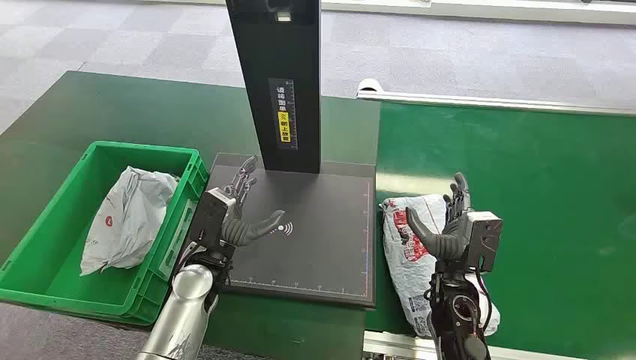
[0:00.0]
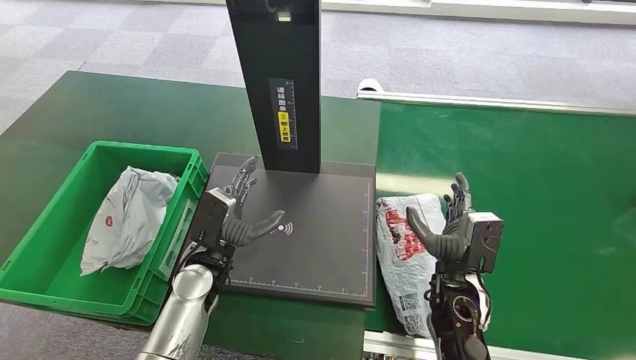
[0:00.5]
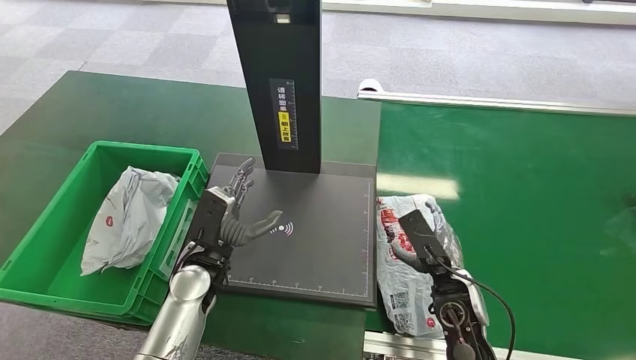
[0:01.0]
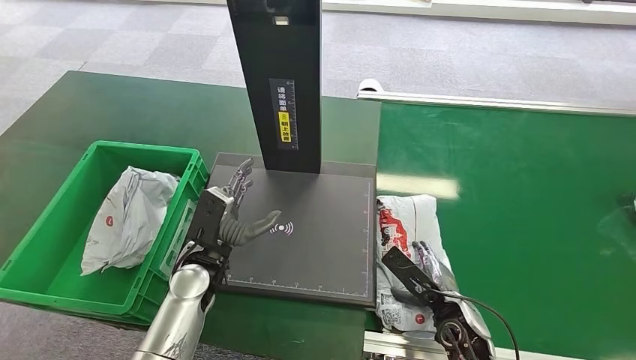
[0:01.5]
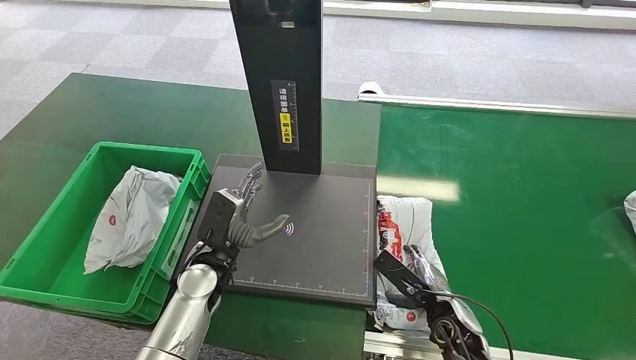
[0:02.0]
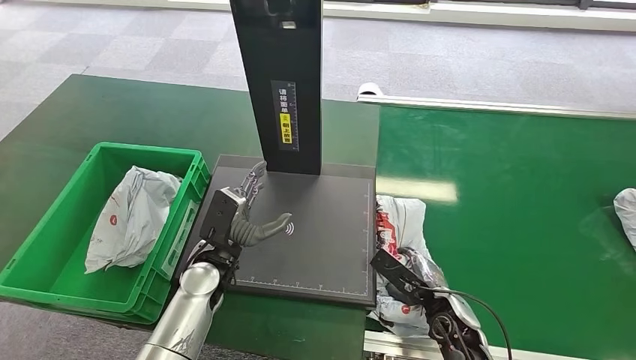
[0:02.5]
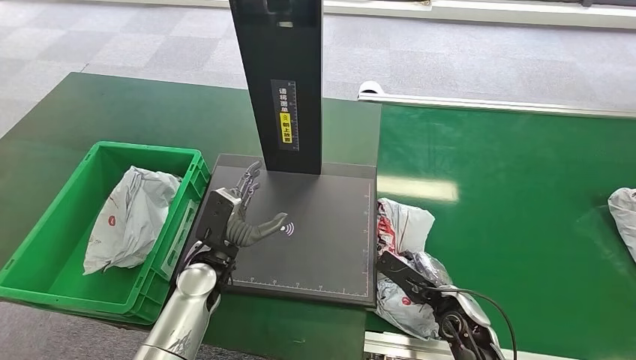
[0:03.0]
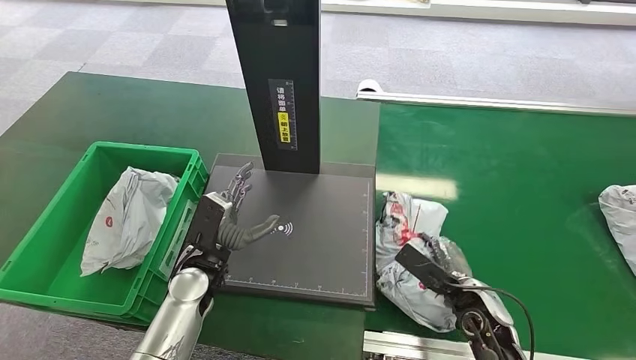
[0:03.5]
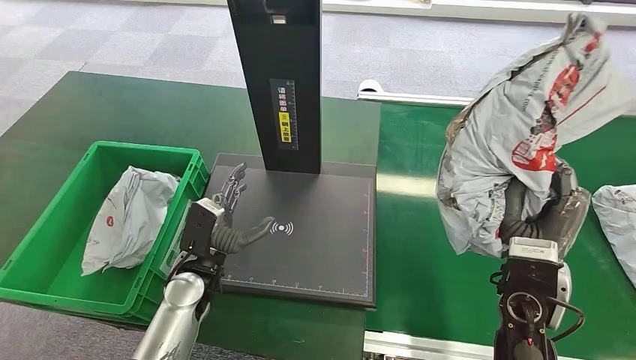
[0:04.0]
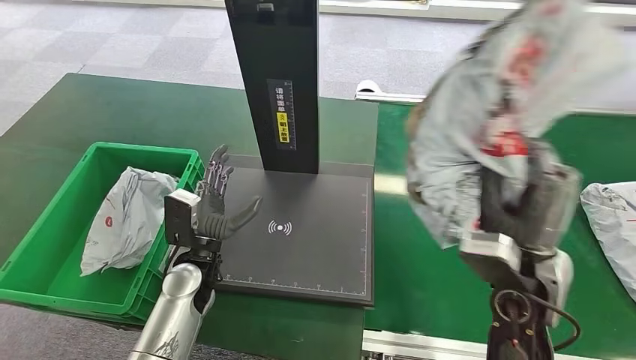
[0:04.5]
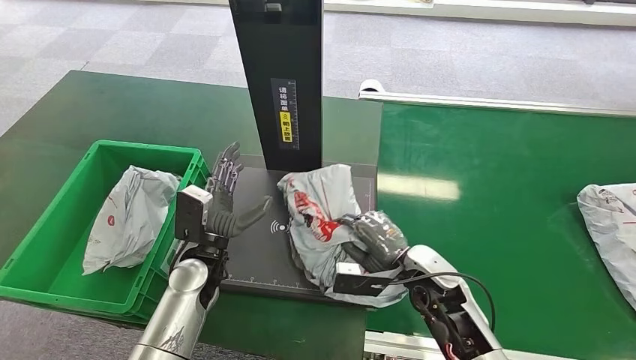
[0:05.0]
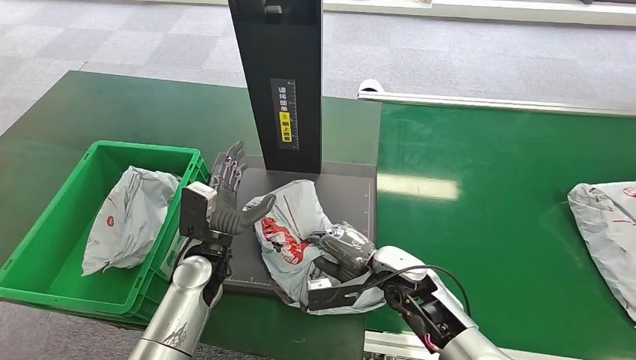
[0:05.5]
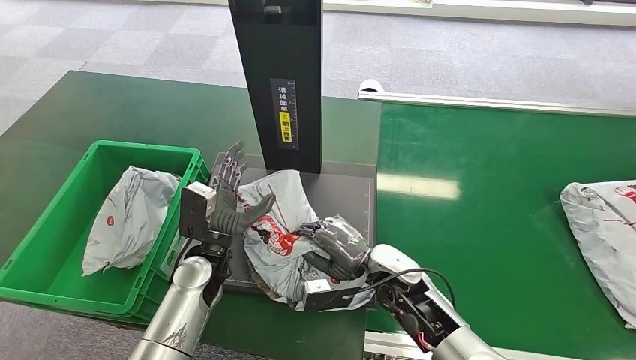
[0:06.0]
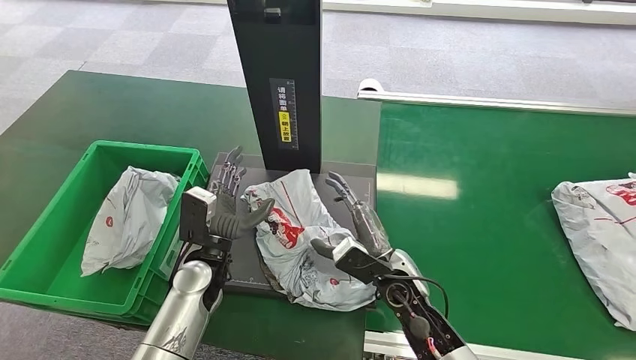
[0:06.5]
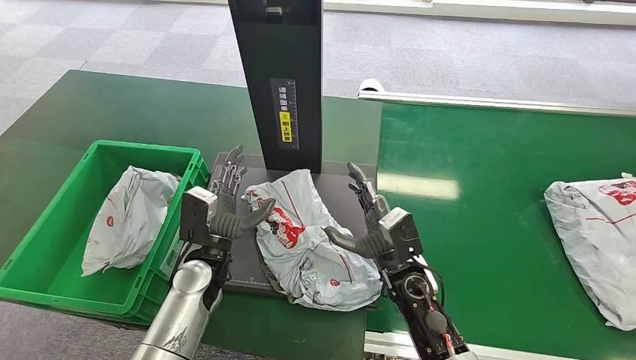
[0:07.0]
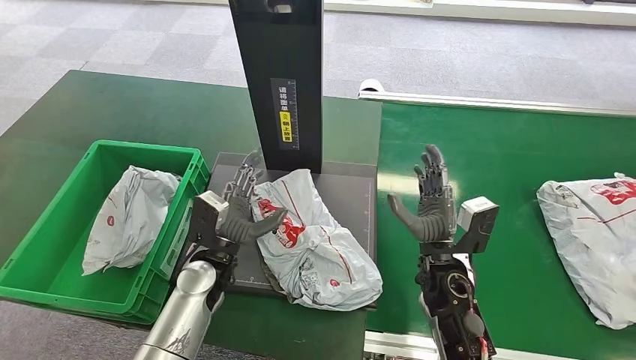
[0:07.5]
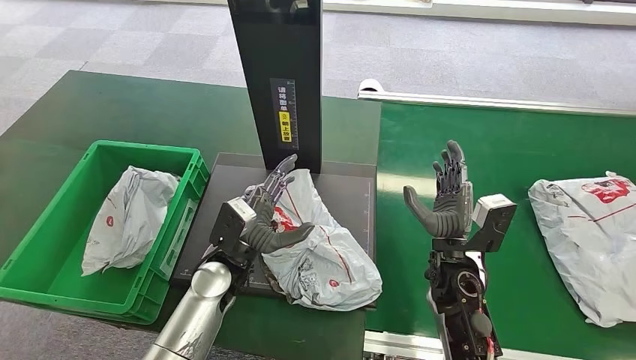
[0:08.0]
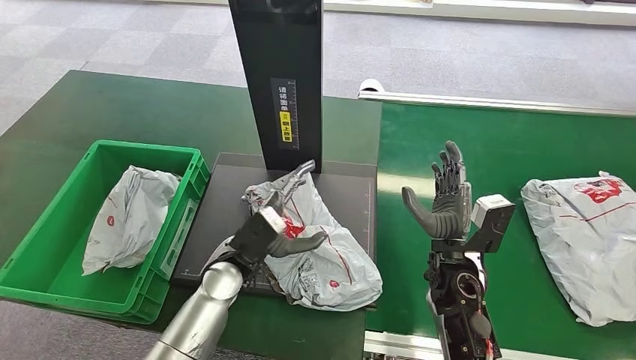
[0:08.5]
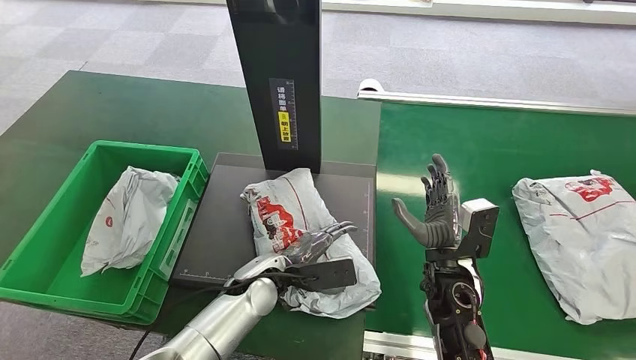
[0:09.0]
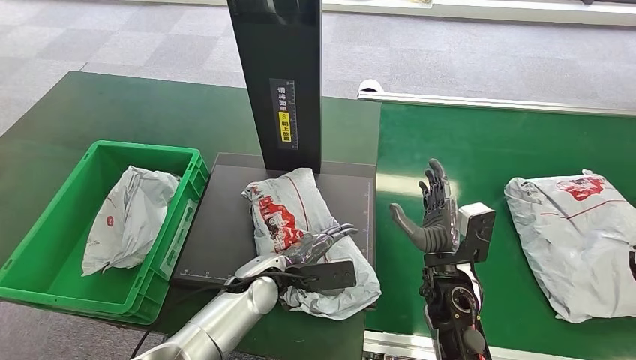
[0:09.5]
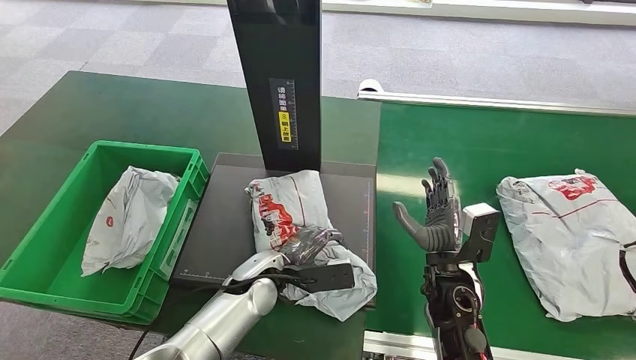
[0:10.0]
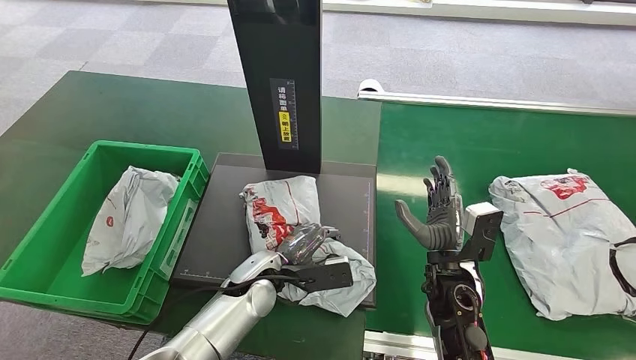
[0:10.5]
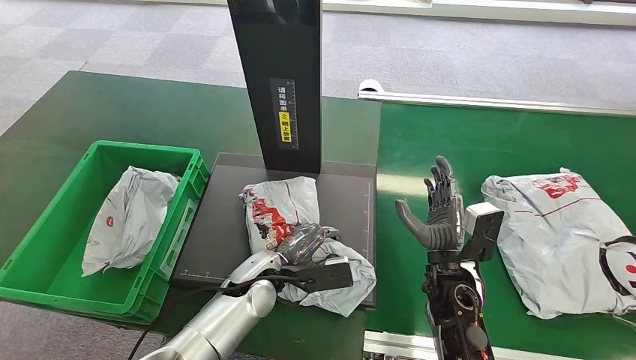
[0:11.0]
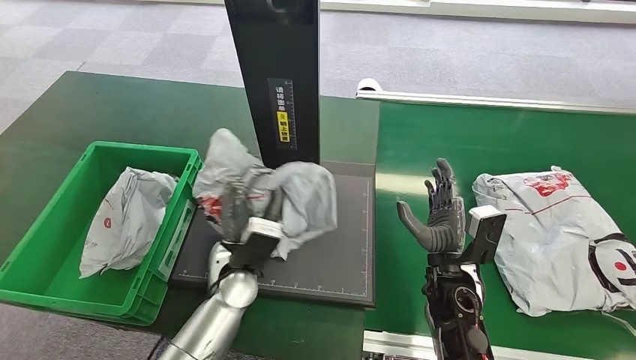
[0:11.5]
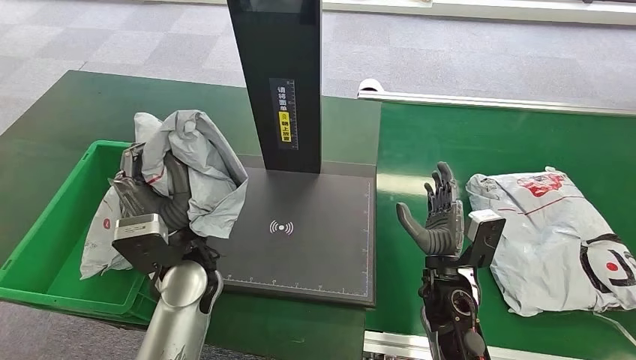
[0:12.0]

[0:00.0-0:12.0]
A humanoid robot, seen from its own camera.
Step, 0:00.0 to 0:04.0: Pick up the package from the conveyor belt.
Step, 0:04.5 to 0:06.5: Place the package onto the inbound machine.
0:06.0 to 0:08.0: The right hand is displaced to the right by about 5 cm.
0:08.0 to 0:10.0: The left hand changes place by roughly 5 cm.

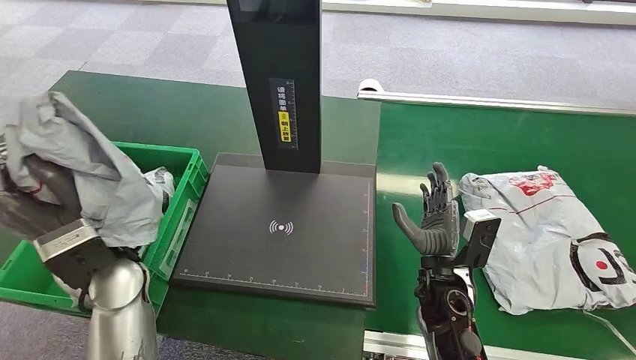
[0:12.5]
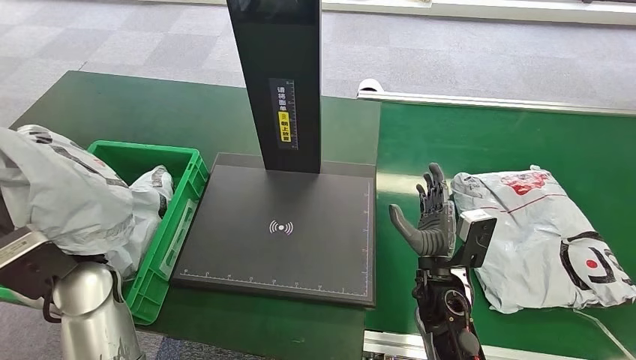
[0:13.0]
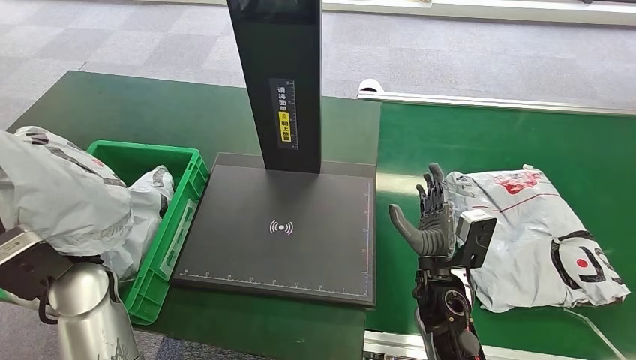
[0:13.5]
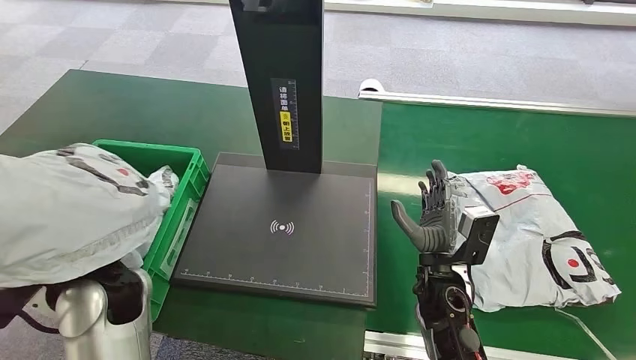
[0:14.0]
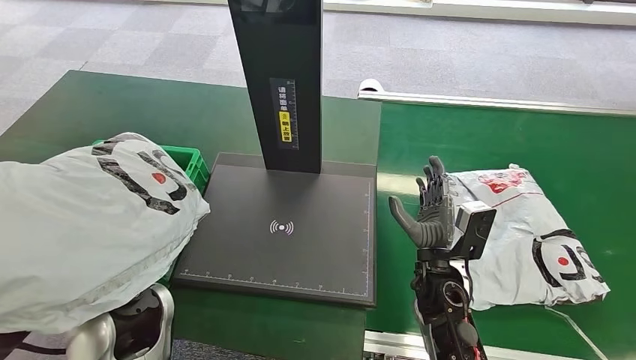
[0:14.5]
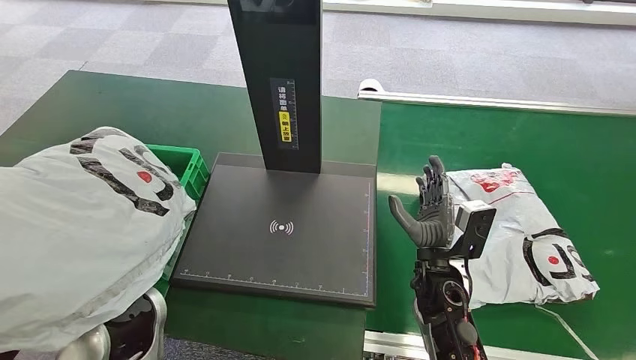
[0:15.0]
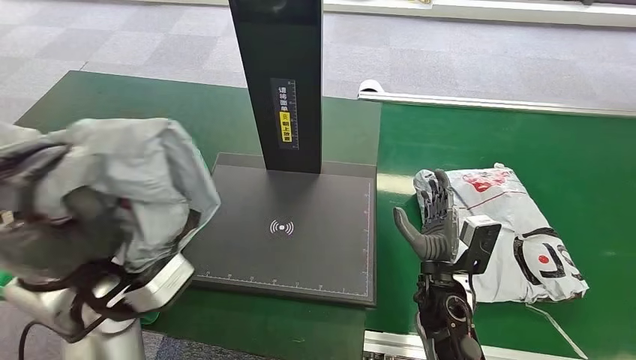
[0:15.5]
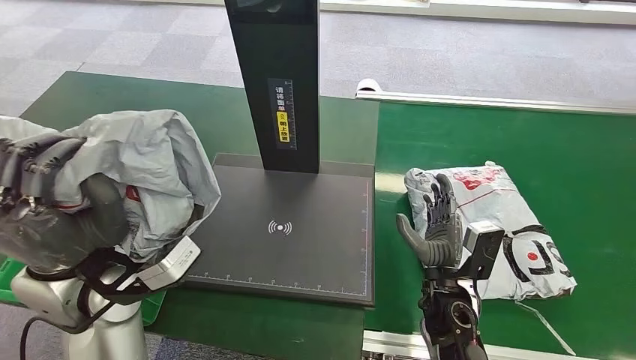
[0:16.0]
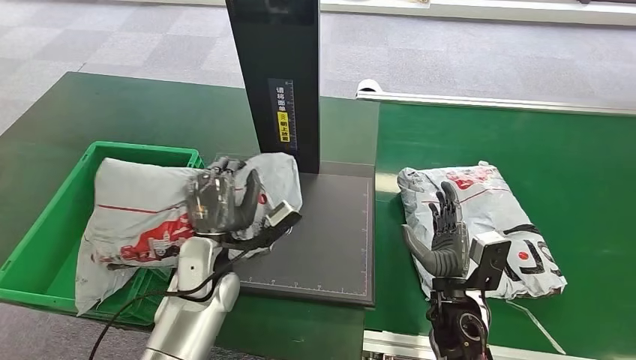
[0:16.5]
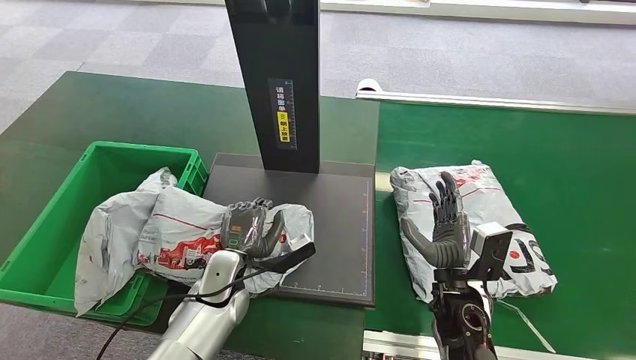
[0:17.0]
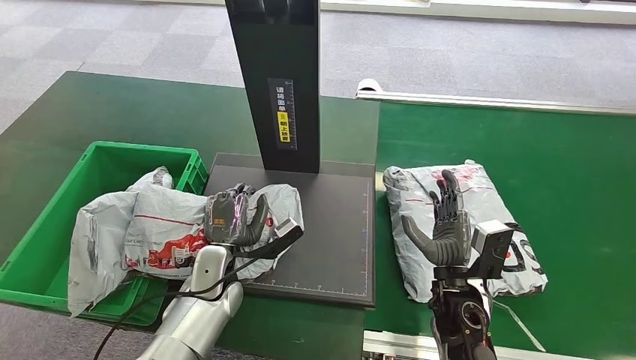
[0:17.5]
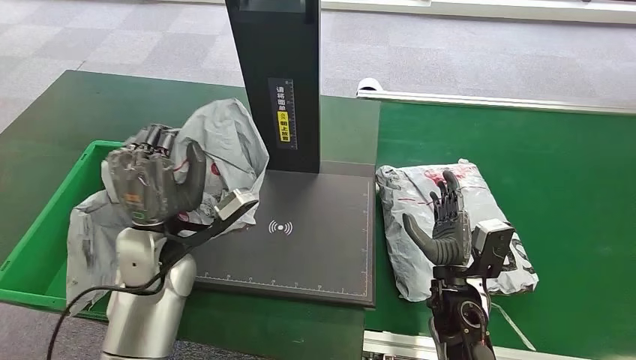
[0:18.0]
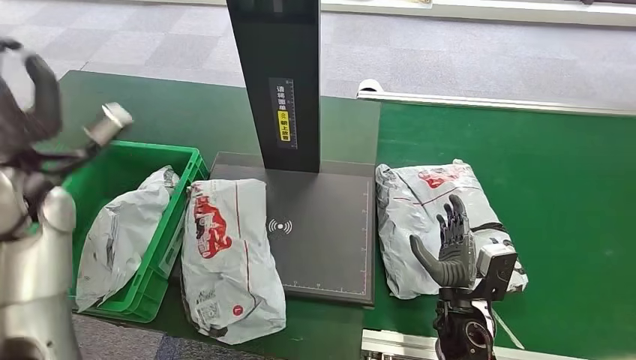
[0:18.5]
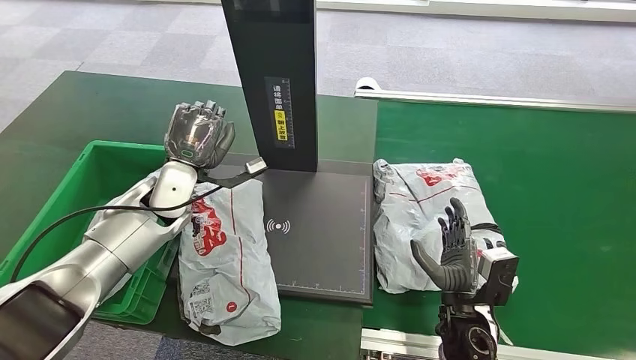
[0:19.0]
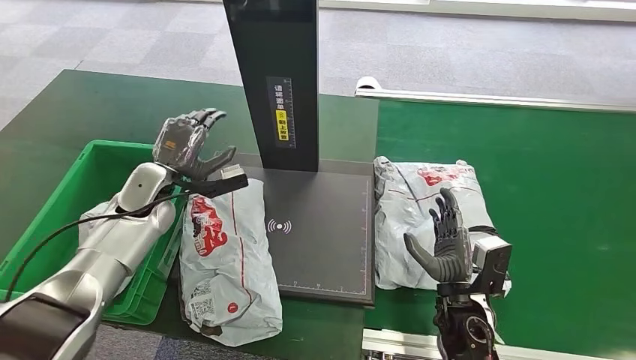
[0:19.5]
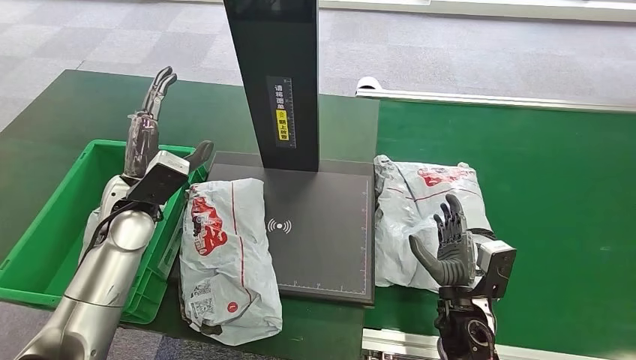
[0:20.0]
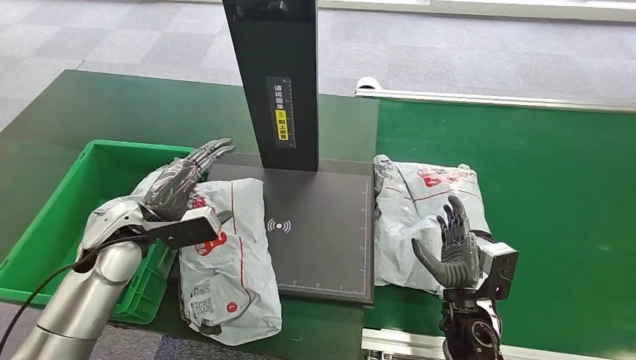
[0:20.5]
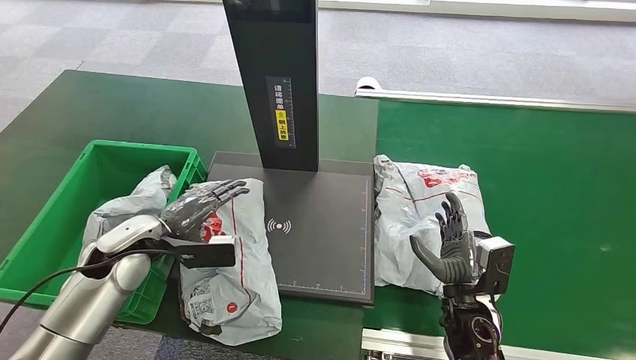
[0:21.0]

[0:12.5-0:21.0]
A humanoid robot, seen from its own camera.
0:19.0 to 0:21.0: The left hand shifts roughly 10 cm backward.
